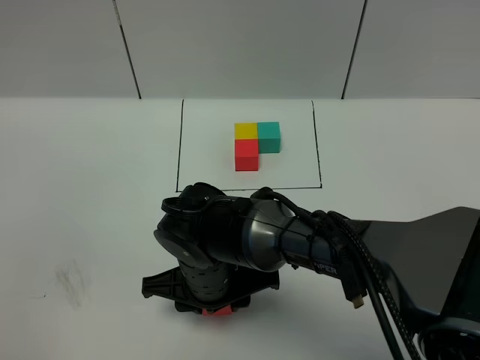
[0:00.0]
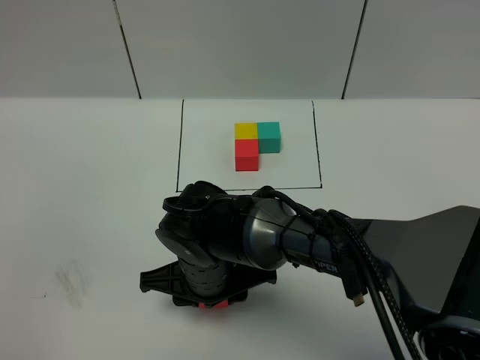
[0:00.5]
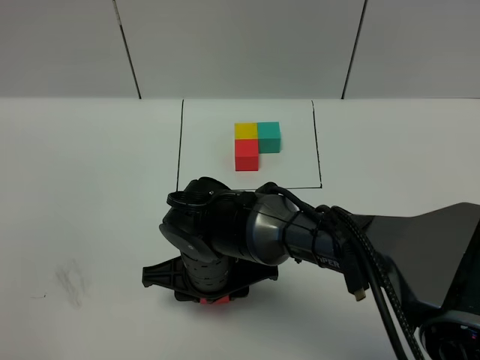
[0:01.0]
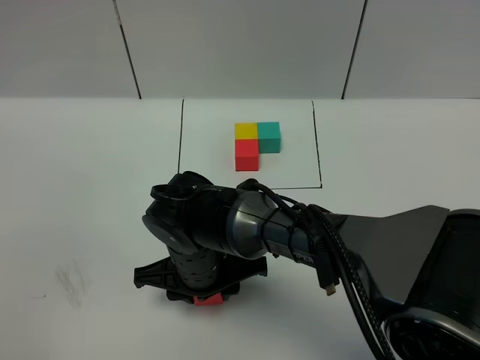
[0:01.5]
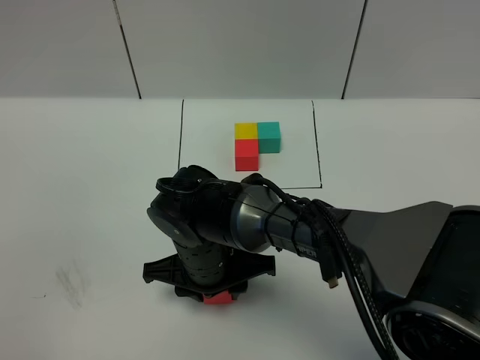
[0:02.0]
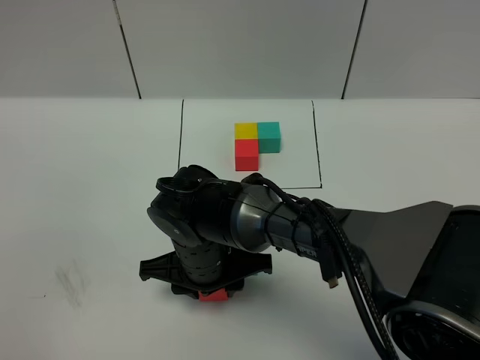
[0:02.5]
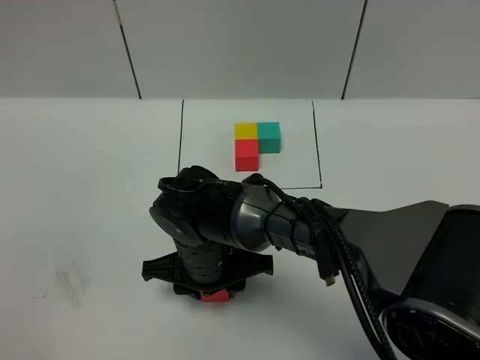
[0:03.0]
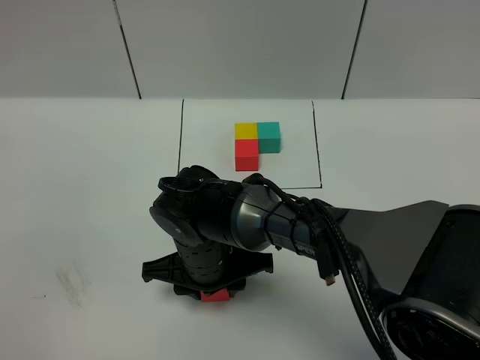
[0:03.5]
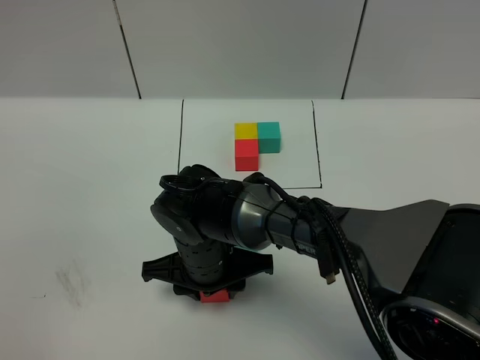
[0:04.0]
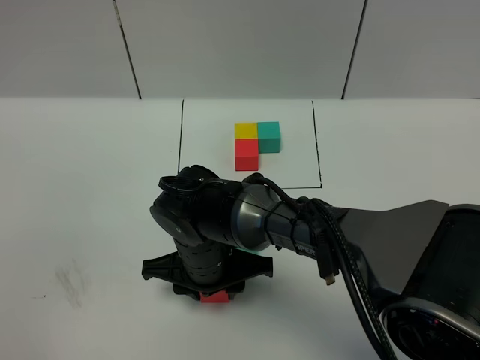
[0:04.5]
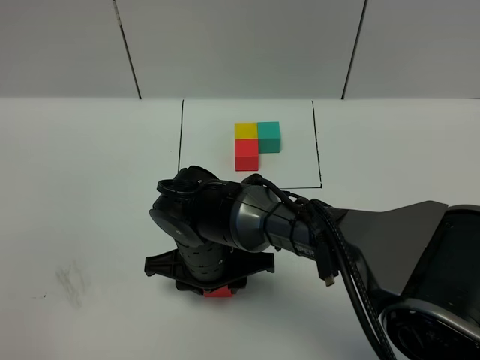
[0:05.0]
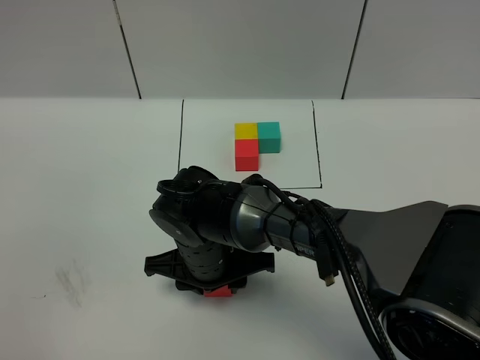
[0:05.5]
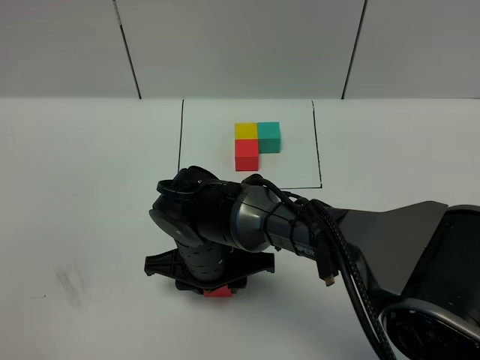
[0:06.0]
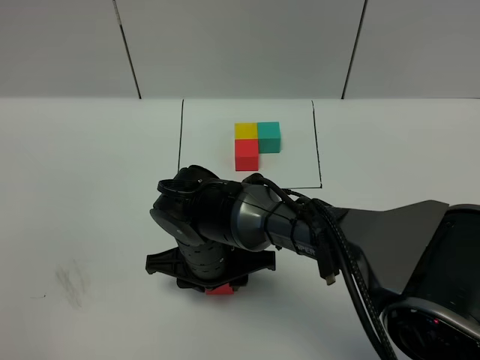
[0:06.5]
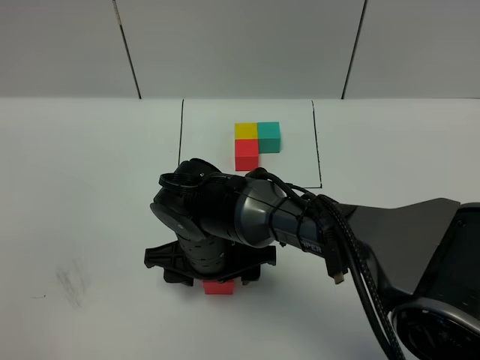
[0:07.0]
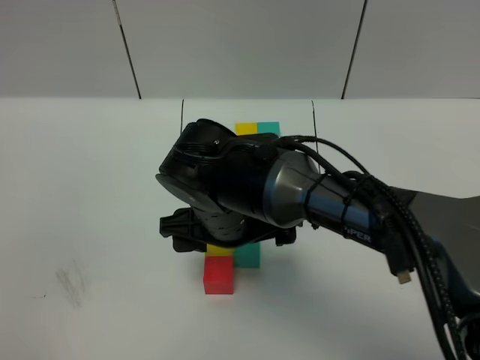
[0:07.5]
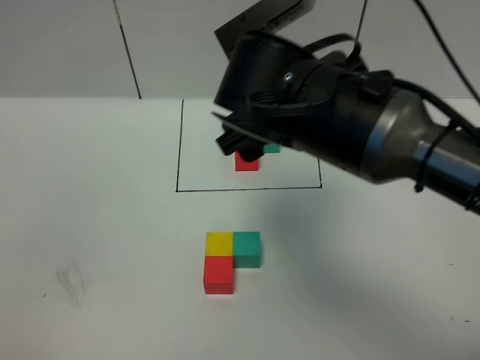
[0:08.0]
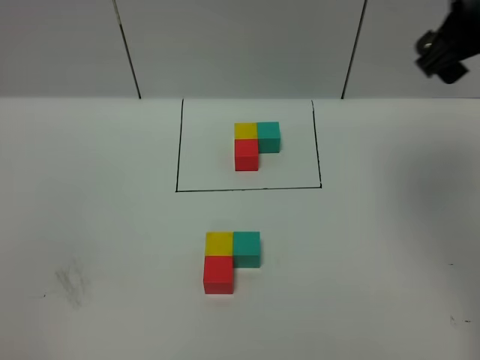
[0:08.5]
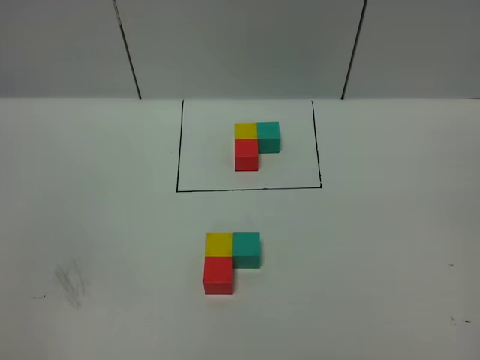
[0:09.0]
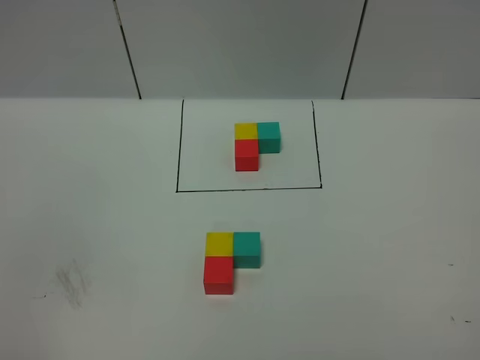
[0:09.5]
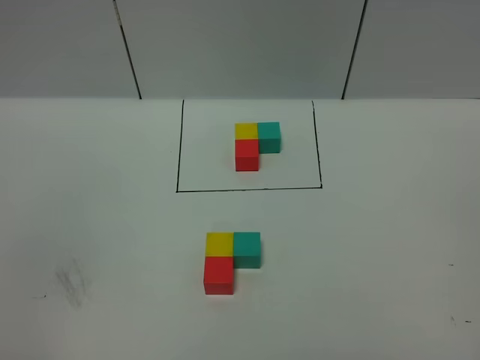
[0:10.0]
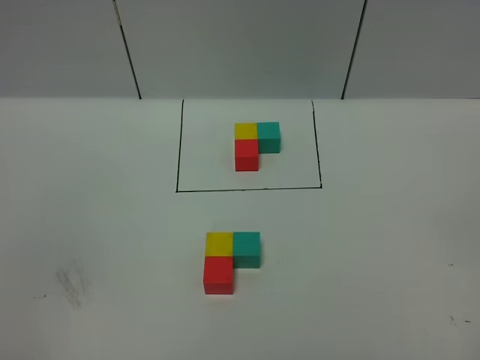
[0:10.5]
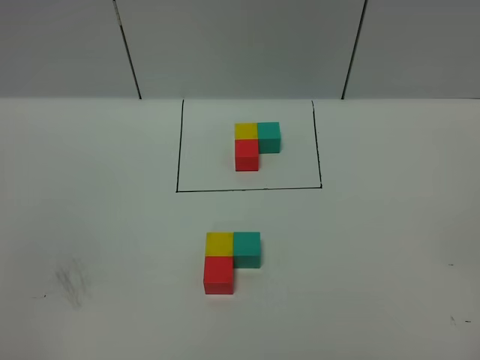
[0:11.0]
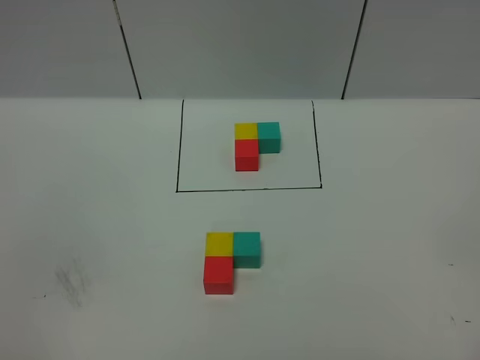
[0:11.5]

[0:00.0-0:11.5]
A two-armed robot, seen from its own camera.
Task of the whole recording: According to the building block template in front, assemble the scattered blocks together.
Step, 0:00.0 to 0:07.0: Put the red cube in the front of the yellow cube.
0:00.0 to 0:02.0: The grippers stay close to where they were, moving slightly.
0:02.0 to 0:06.0: Both grippers stay about where they are.
0:06.0 to 0:07.5: The right gripper moves upward, approximately 10 cm, and opens.
0:07.5 to 0:09.5: The right gripper heads to the right, backward and upward, covering approximately 50 cm.

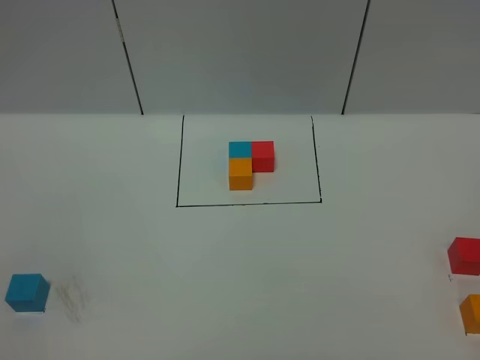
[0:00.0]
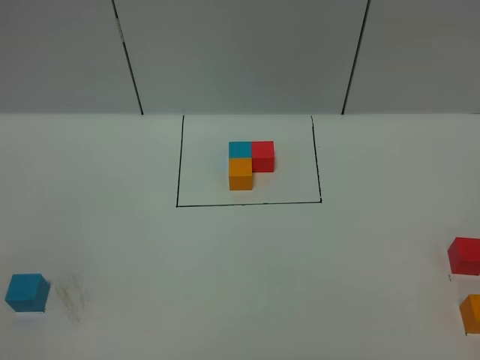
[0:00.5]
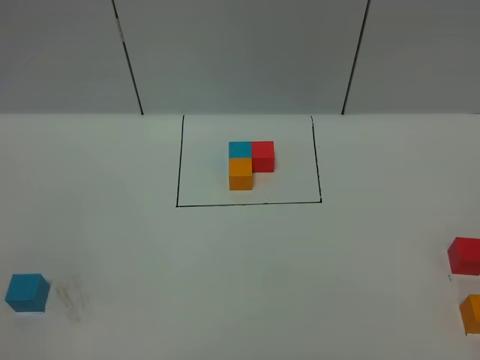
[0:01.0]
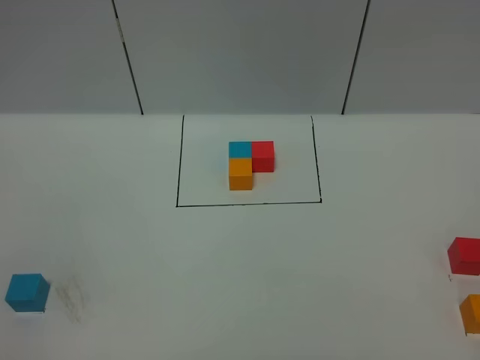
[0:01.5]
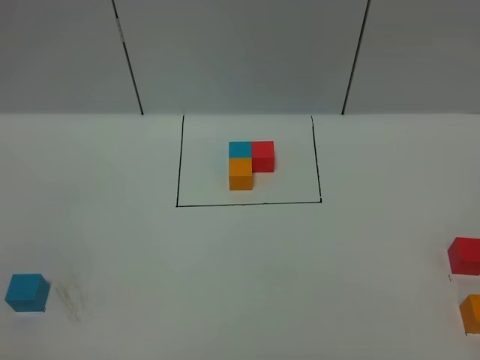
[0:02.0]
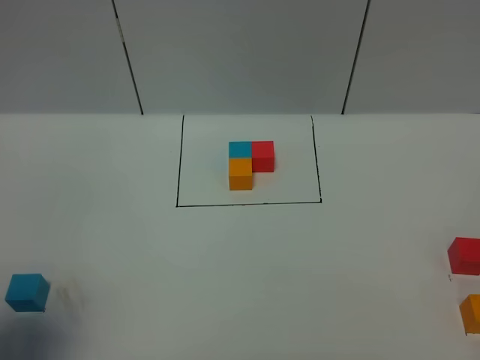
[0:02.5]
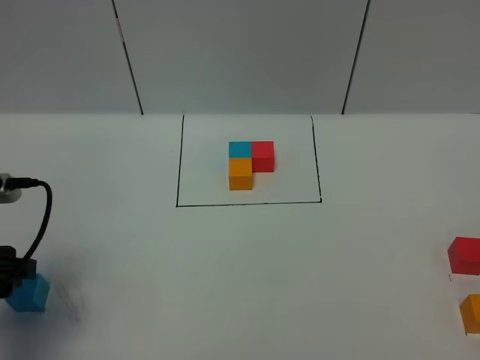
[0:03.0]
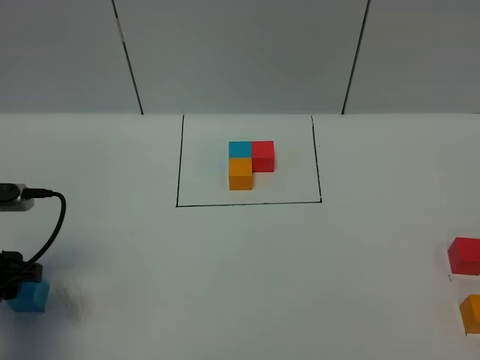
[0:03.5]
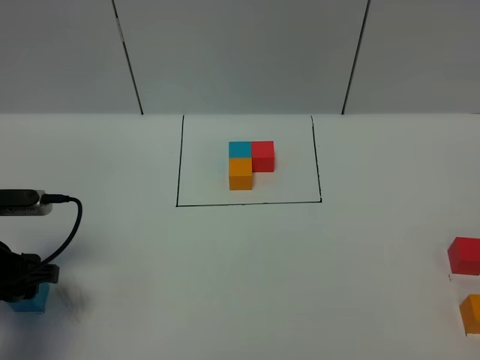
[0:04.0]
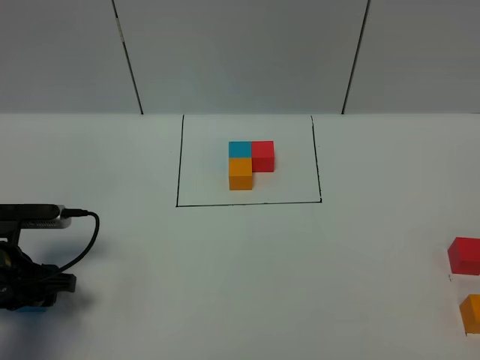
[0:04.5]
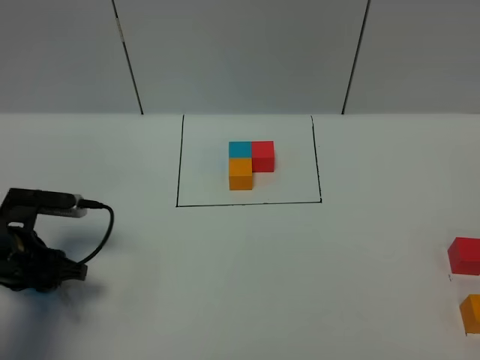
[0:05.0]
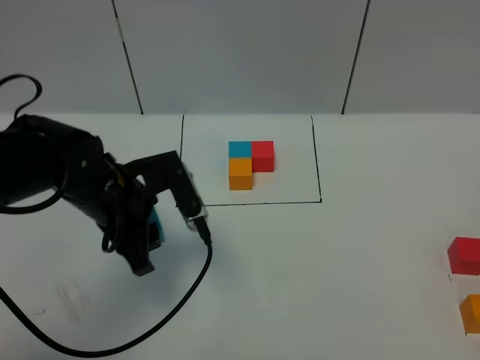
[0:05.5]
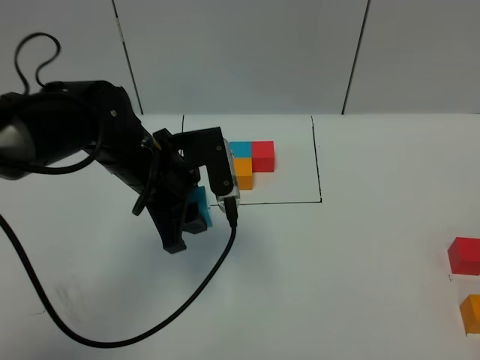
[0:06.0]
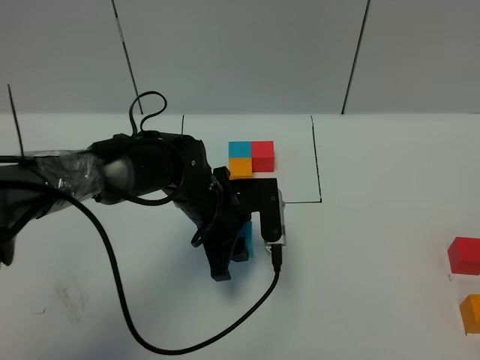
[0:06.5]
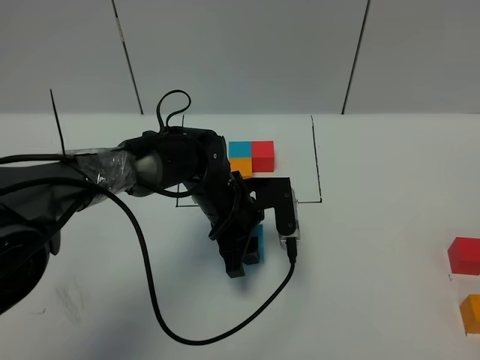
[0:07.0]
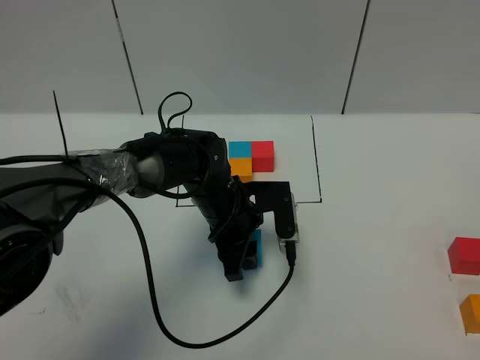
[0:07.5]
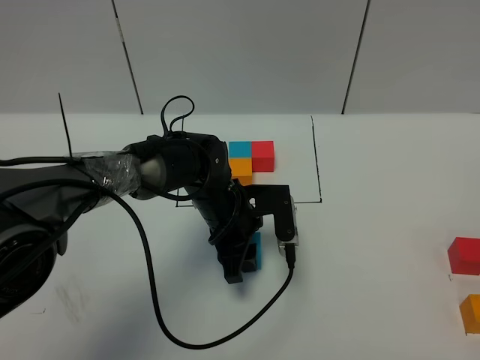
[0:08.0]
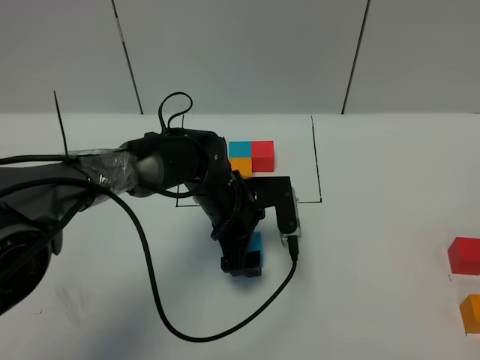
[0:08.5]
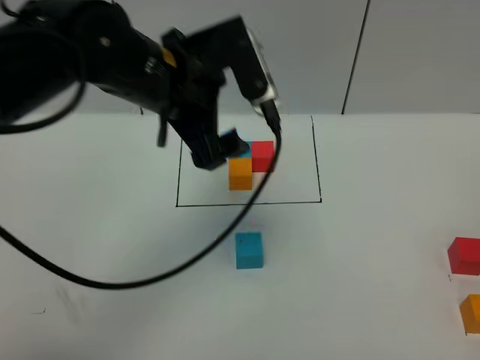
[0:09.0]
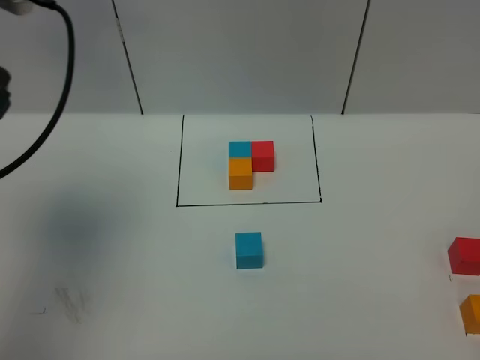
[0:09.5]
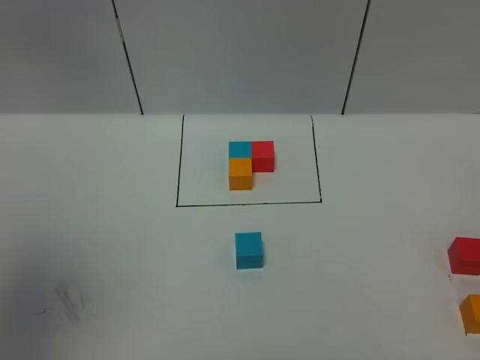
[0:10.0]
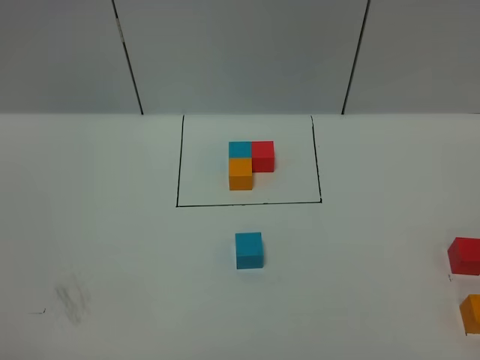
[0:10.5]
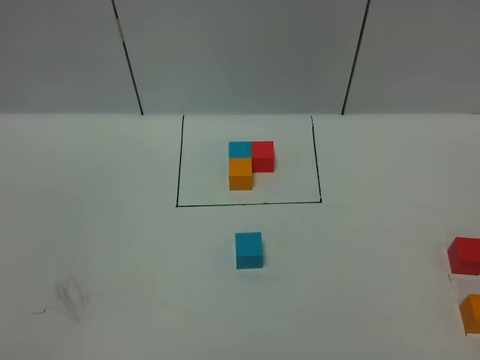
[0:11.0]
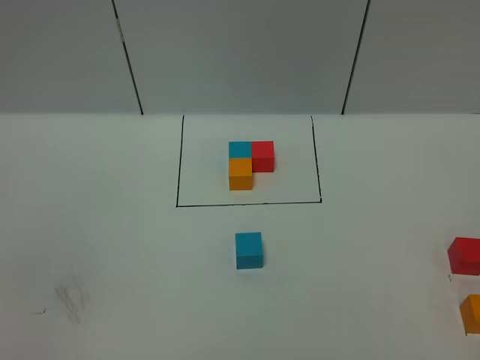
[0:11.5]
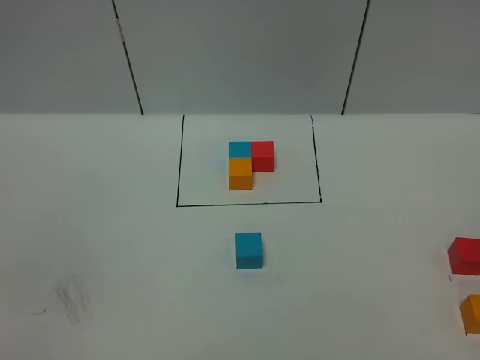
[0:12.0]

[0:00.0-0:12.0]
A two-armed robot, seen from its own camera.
Task of the whole recording: According to the building block template in front, assemble the scattered blocks together.
Step, 0:03.0 to 0:08.5: Put the blue cube in the center of the table.
0:02.0 to 0:04.0: The left gripper moves forward and downward, approximately 25 cm.
0:04.0 to 0:06.0: The left gripper heads to the right and forward, covering roughly 20 cm, and closes.
0:06.0 to 0:08.0: The left gripper goes about 15 cm downward and to the right.
0:08.0 to 0:10.0: The left gripper goes roughly 50 cm upward, to the left and backward, and opens up.
0:10.0 to 0:12.0: The left gripper is displaced downward and backward by some 30 cm.

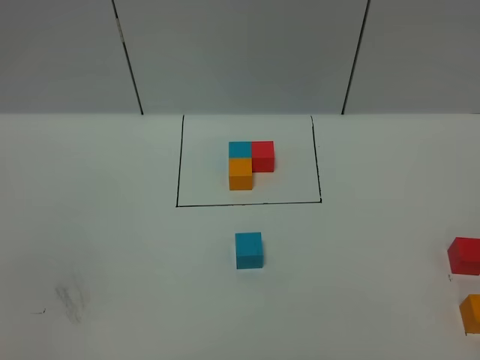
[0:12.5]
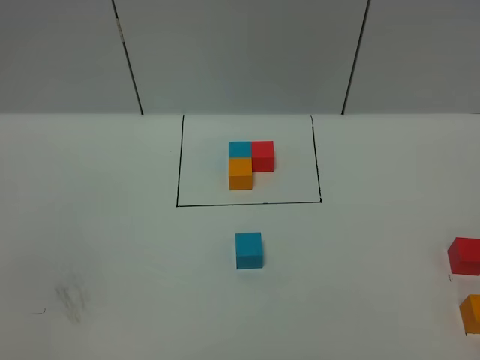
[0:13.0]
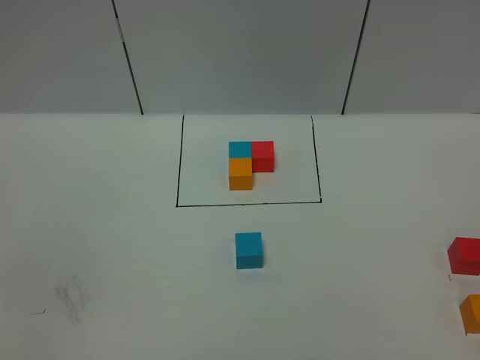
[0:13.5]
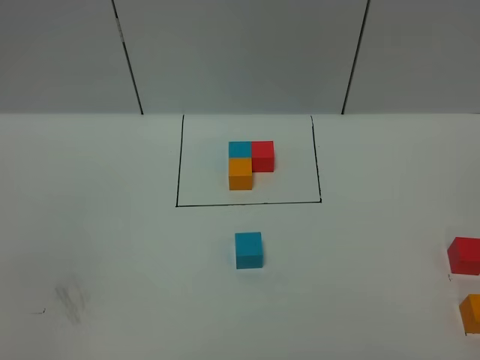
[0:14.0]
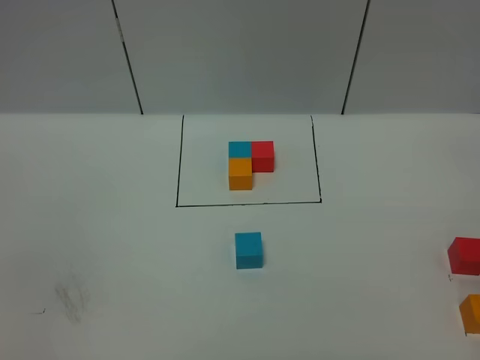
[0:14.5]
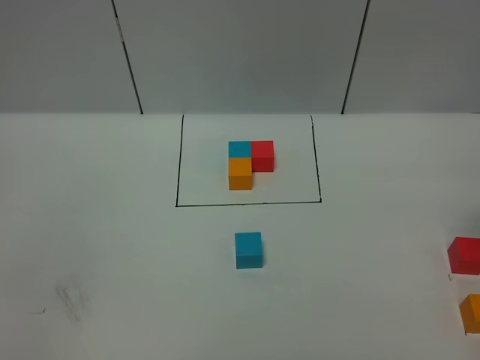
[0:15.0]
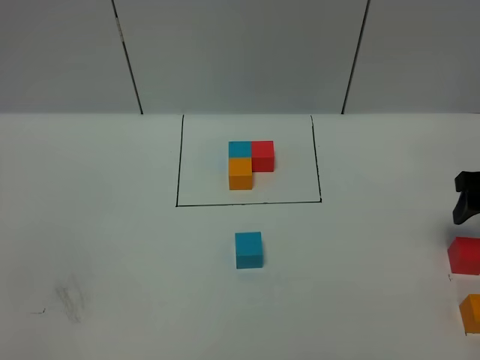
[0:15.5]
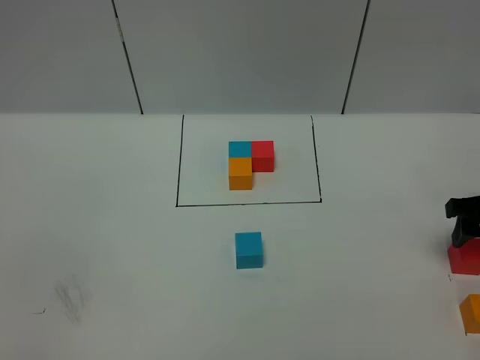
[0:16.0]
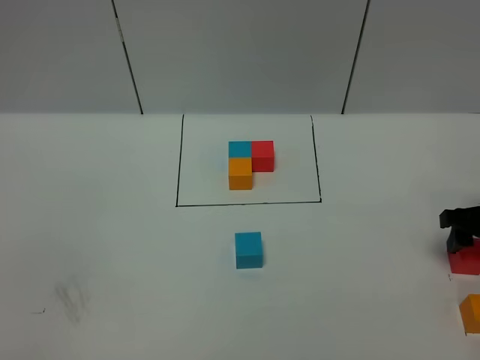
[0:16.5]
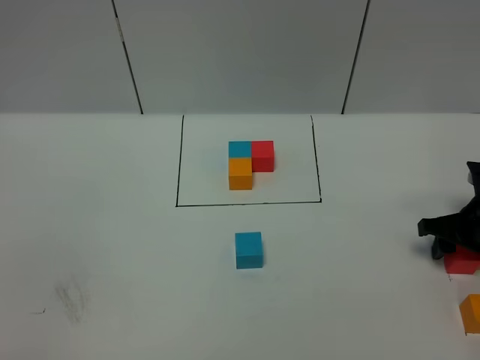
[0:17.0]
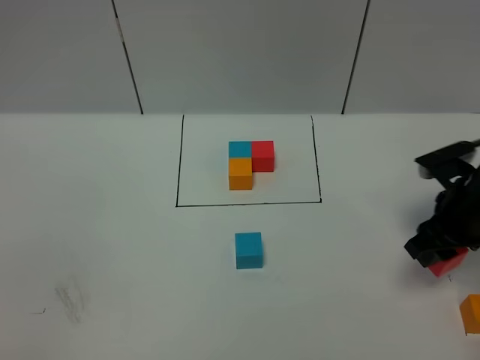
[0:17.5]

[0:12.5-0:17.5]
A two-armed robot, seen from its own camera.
Task of the whole recording: According to the building block template in front, assemble the scattered blocks together.
0:15.0 to 0:17.5: The right gripper travels downward and to the left by roughly 15 cm, and closes.
